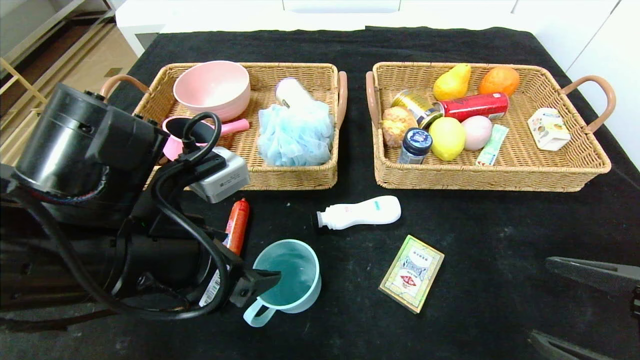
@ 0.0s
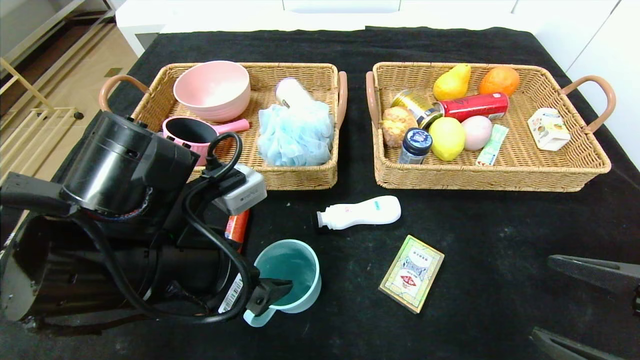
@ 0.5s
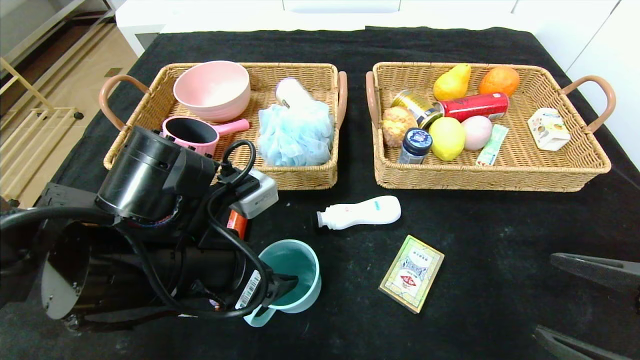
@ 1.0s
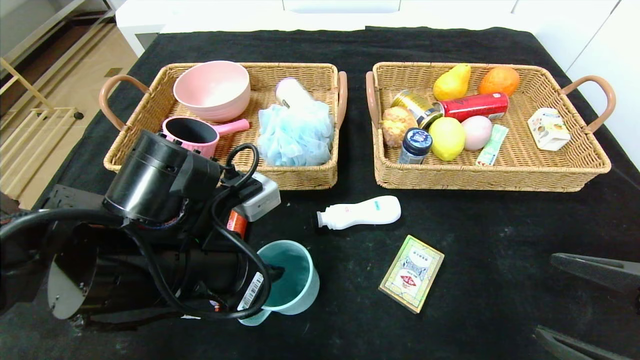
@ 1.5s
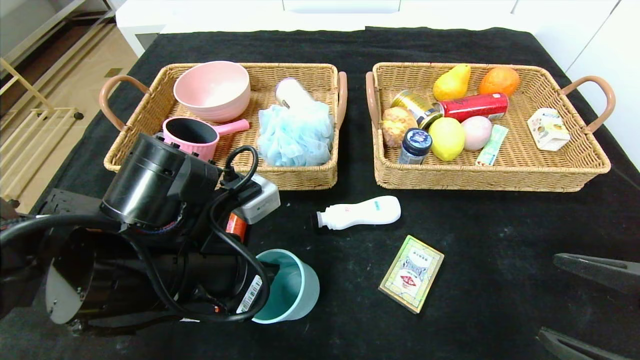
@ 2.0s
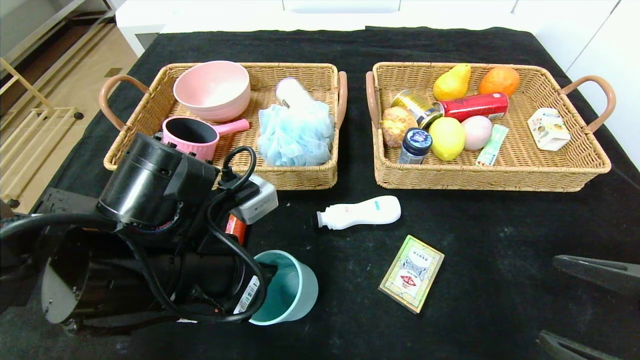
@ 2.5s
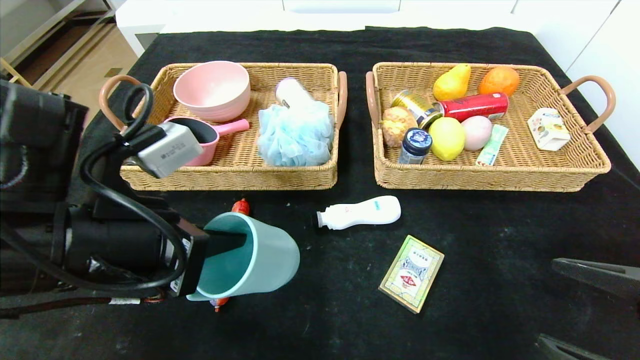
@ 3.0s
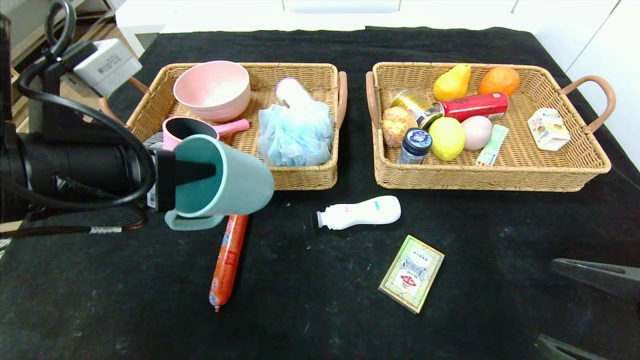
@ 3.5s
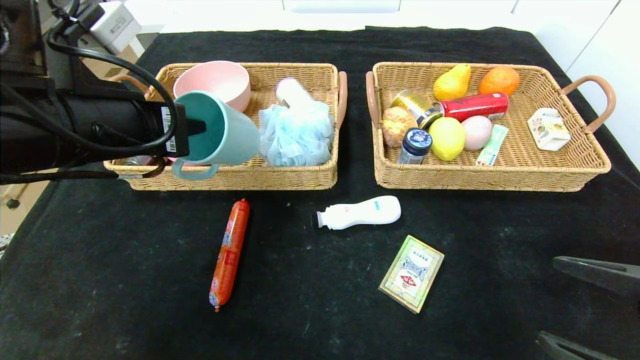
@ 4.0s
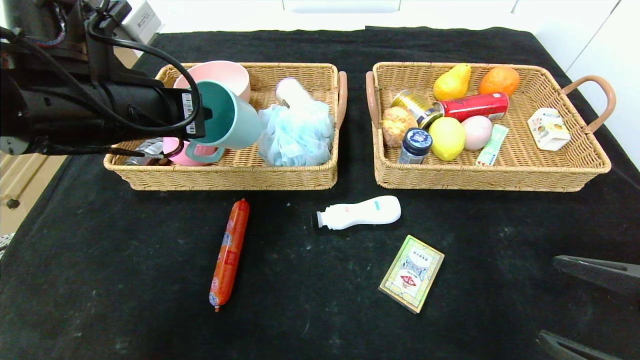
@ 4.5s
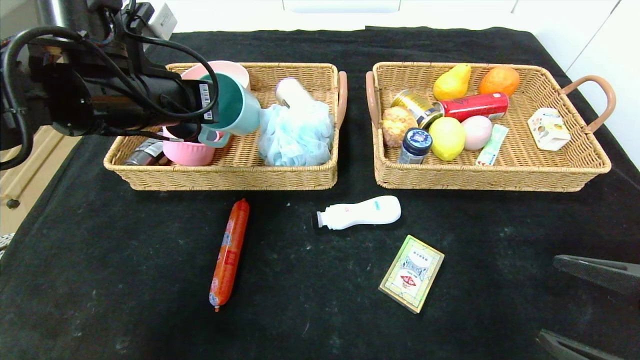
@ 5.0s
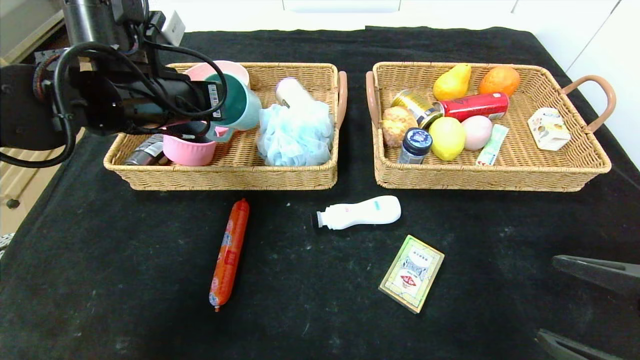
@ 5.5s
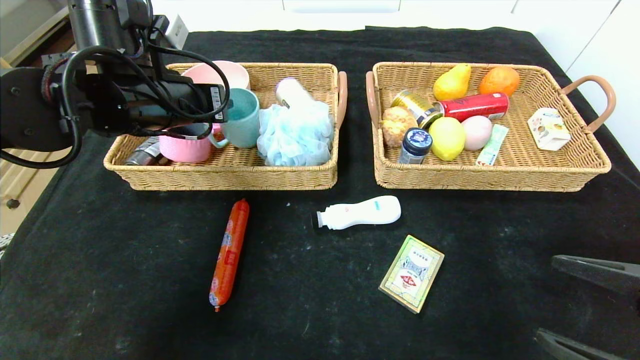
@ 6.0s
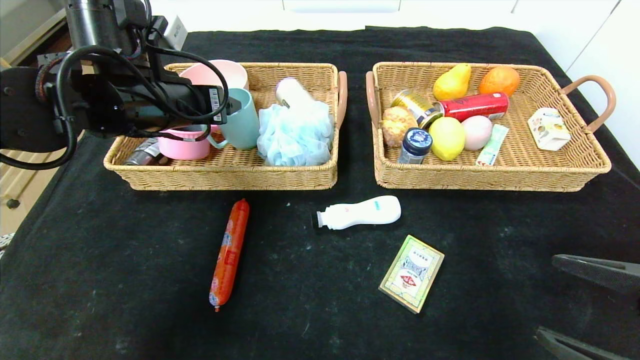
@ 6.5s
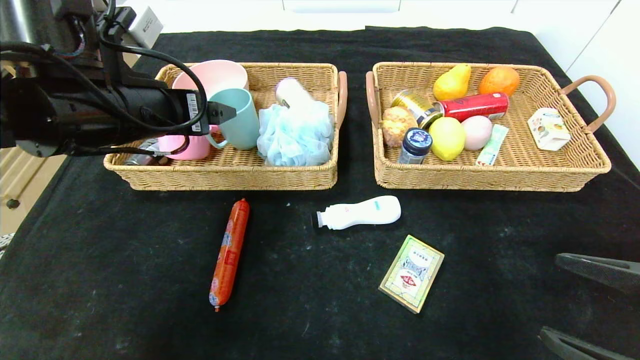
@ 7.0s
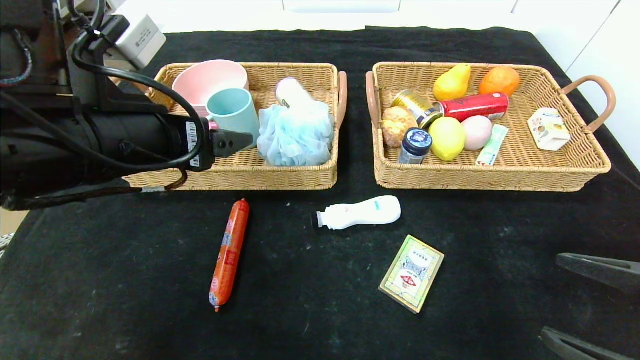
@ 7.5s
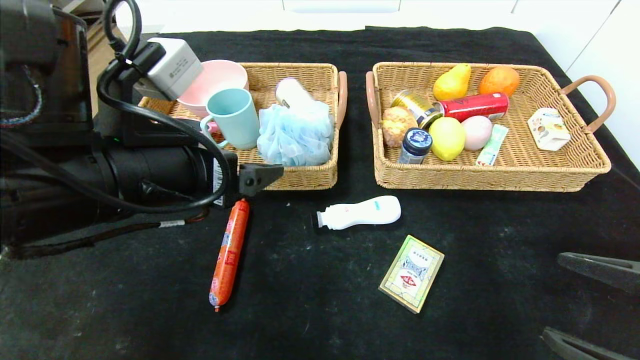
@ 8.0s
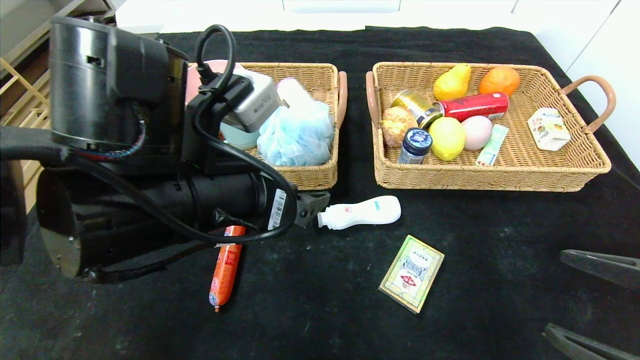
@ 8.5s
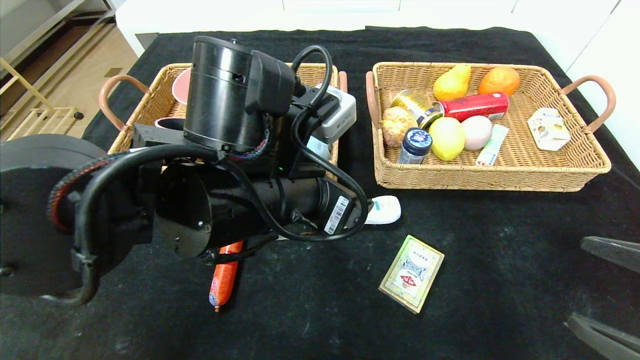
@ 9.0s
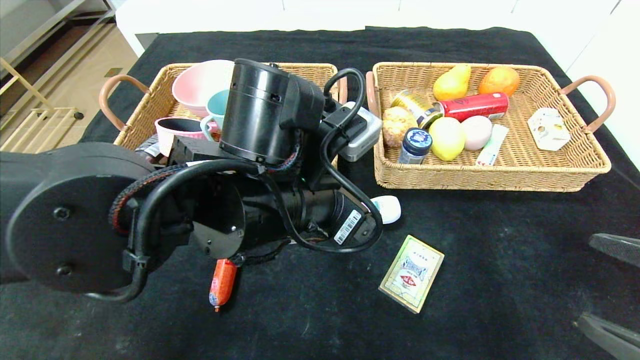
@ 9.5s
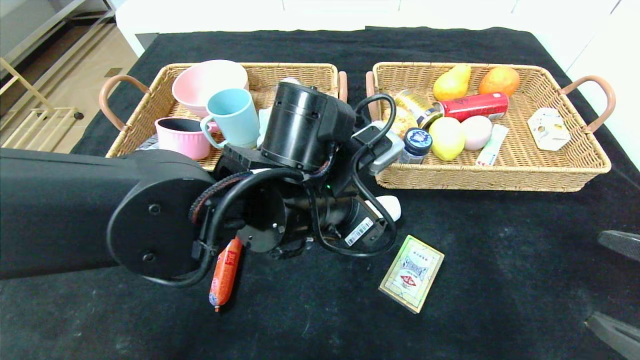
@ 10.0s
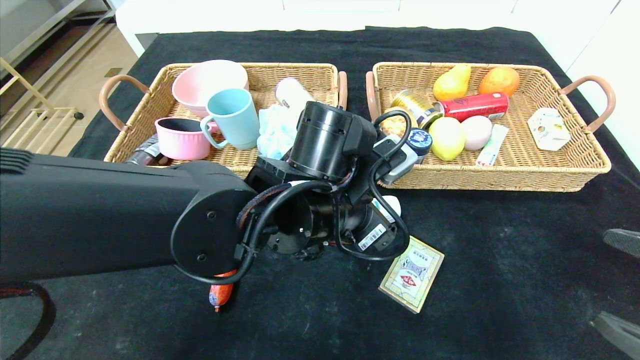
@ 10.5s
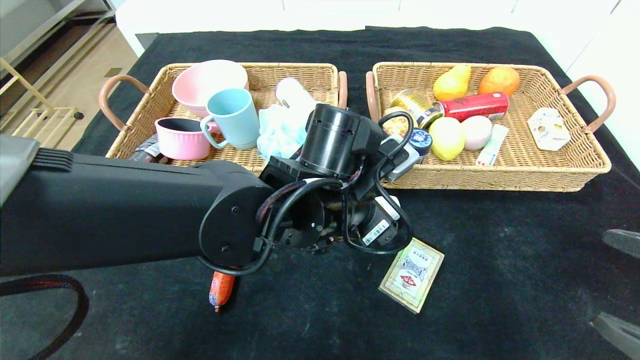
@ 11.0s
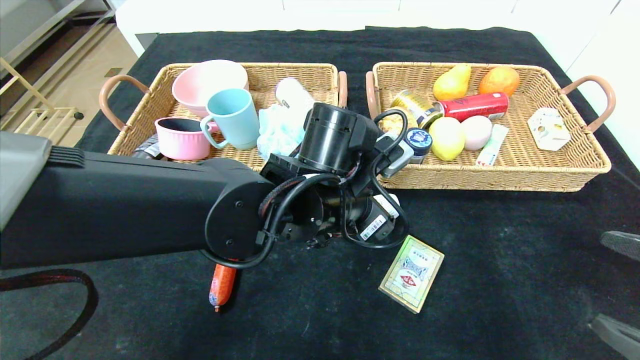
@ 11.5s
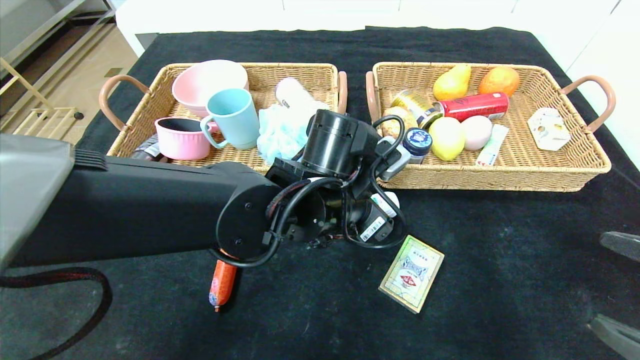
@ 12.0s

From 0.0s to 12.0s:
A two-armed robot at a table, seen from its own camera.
Step, from 0.0s to 7.5s: Pick up the blue cup and put it in the left basket.
From 0.0s to 2.0s: The left gripper closes up.
From 2.0s to 4.0s: The left gripper shifts approximately 15 cm upward and to the left.
From 4.0s to 6.0s: The left gripper is displaced forward by some 10 cm, and opens up.
From 6.0s to 8.0s: The left gripper heads backward, covering about 15 cm, and opens its fingers.
From 8.0s to 10.0s: The left gripper is displaced to the right by roughly 15 cm.
From 10.0s to 12.0s: The grippers make only small movements.

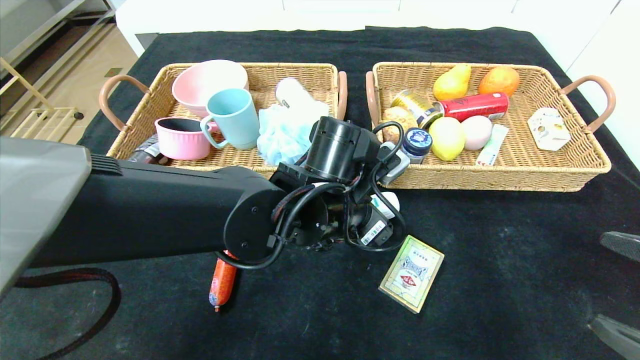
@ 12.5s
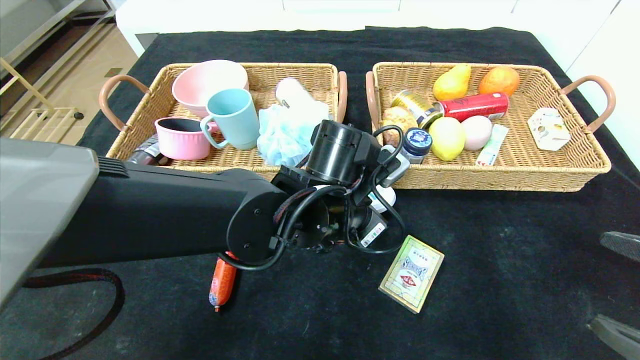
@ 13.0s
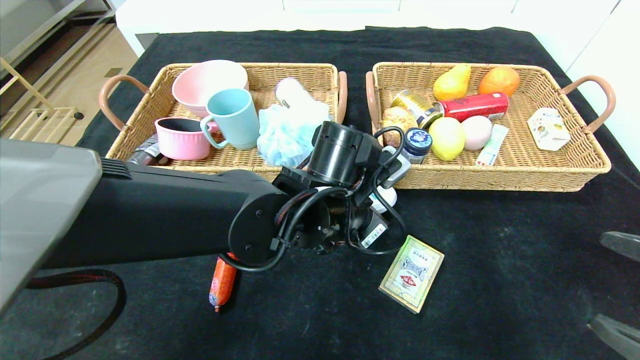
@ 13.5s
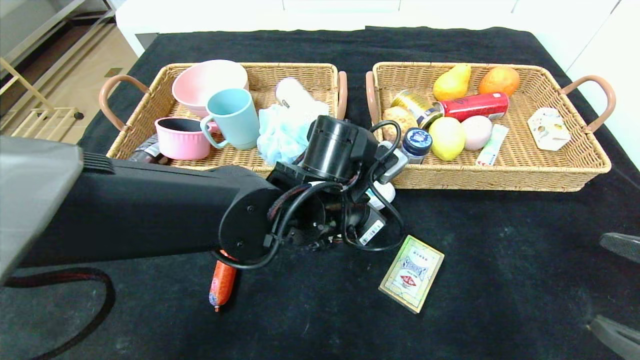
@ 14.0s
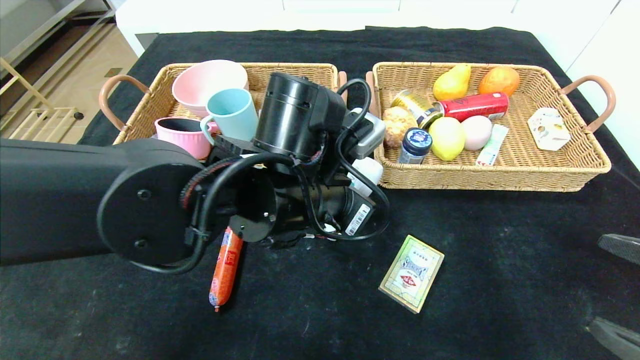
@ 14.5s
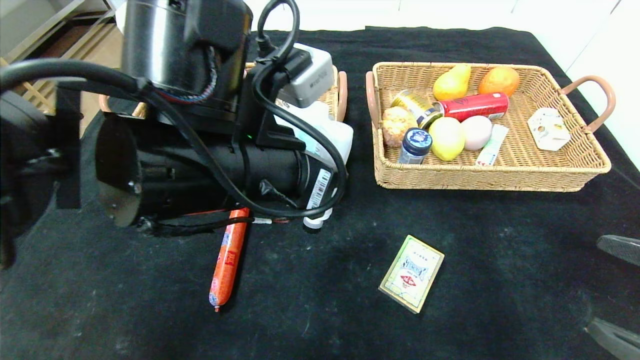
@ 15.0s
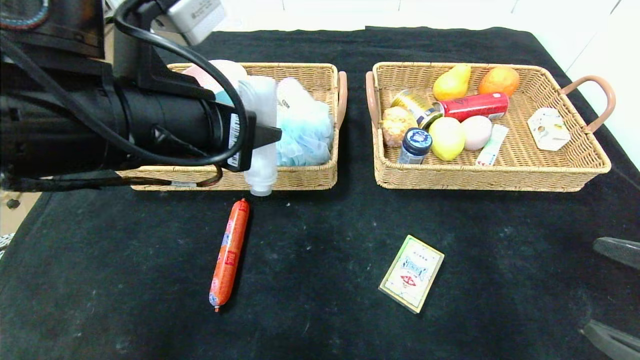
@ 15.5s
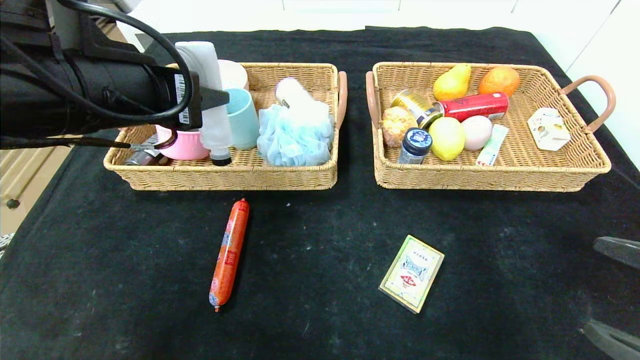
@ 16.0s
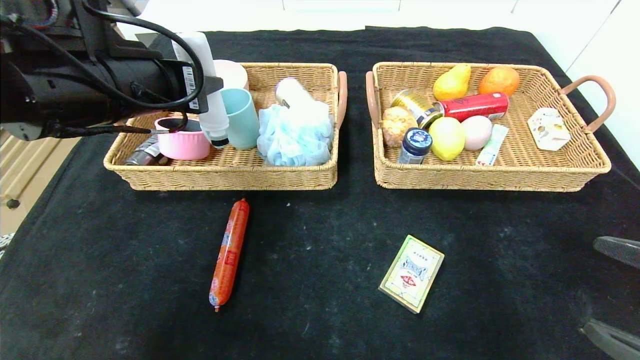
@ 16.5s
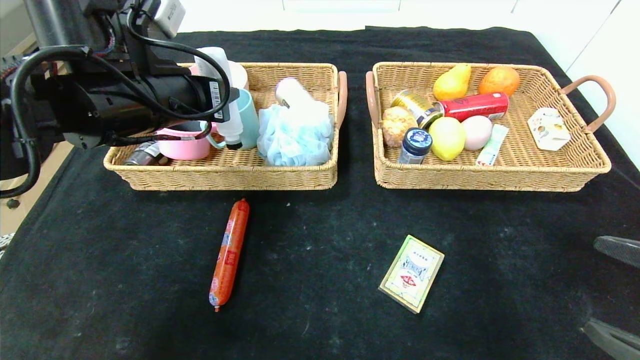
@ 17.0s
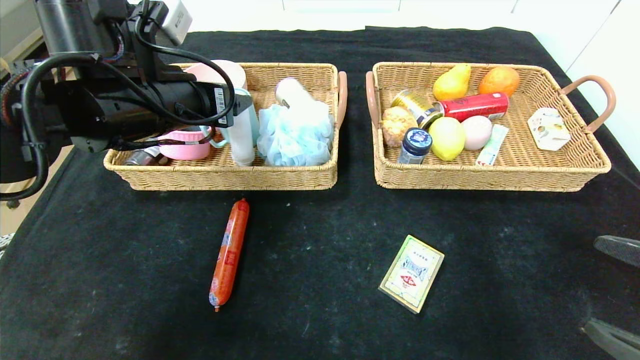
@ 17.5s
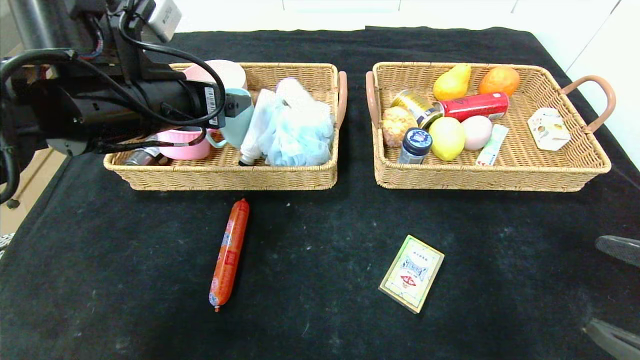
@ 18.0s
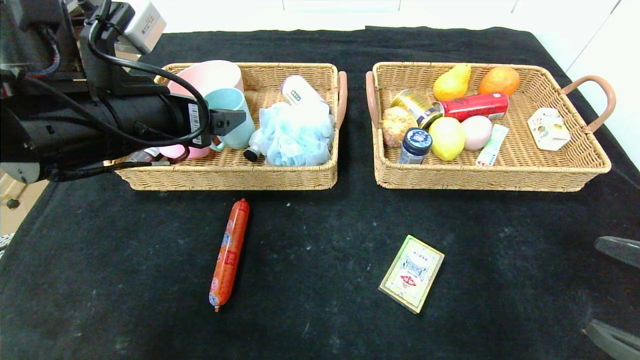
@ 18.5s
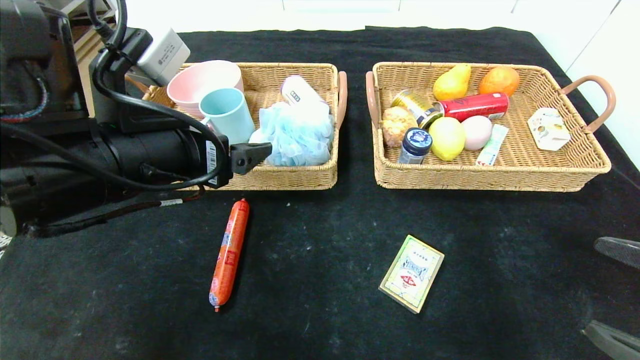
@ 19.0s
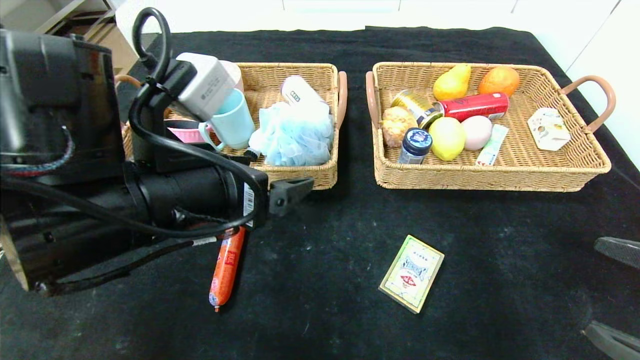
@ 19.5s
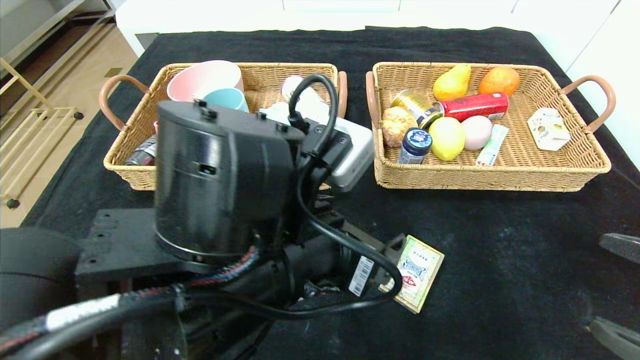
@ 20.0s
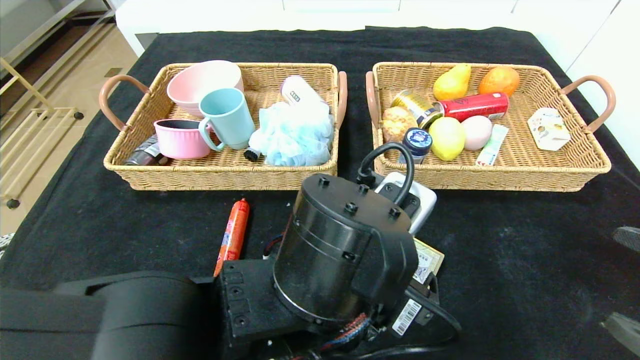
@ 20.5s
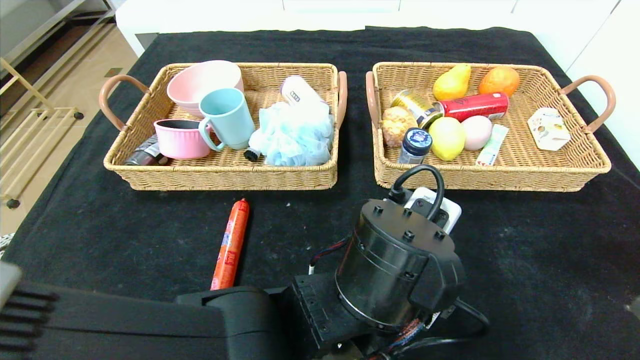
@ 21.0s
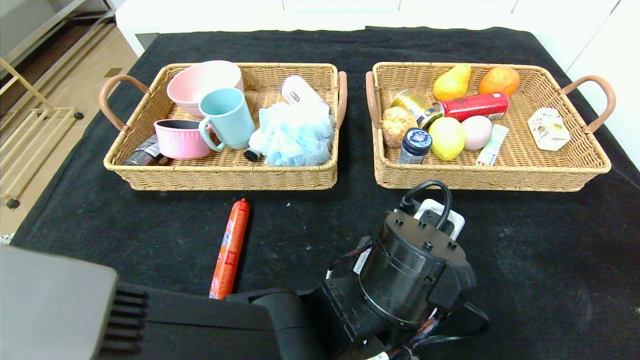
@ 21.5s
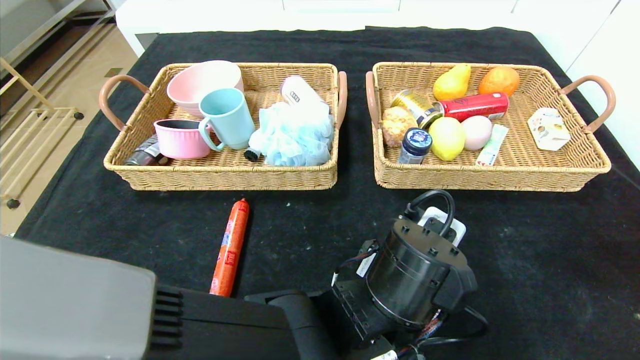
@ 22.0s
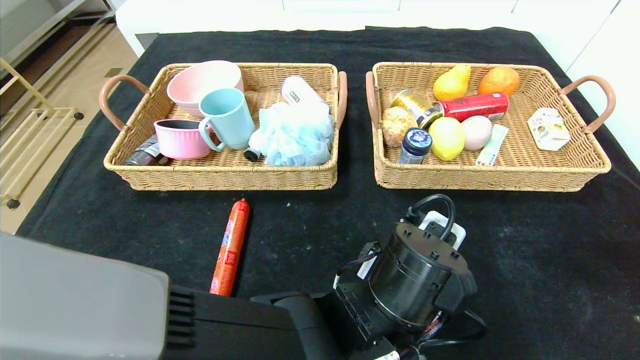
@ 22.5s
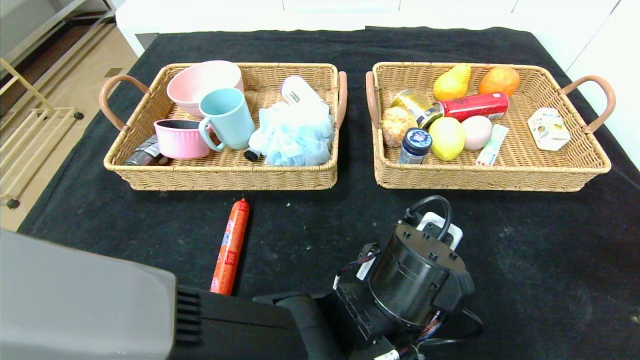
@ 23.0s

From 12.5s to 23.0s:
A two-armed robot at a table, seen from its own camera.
Step, from 12.5s to 19.0s: Pick up the detergent and put it in the left basket.
From 12.5s to 14.5s: The left gripper changes place by some 5 cm, and closes up.
From 14.5s to 16.5s: The left gripper shifts about 20 cm to the left and upward.
From 16.5s to 19.0s: The left gripper travels backward by about 5 cm, and opens.
From 19.0s to 21.0s: The left gripper travels to the right and downward by roughly 25 cm.
From 21.0s to 23.0s: The grippers stay close to where they were, moving slightly.
